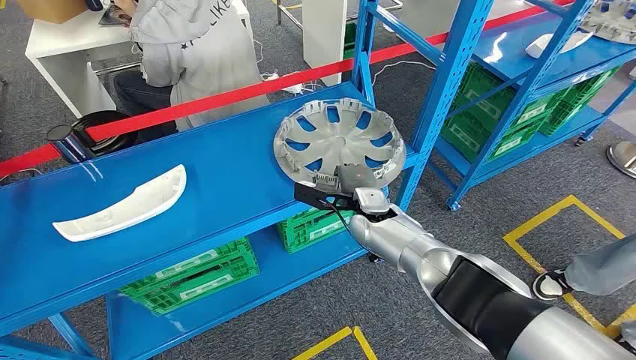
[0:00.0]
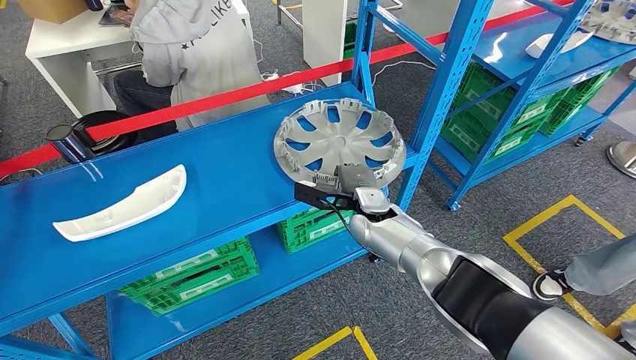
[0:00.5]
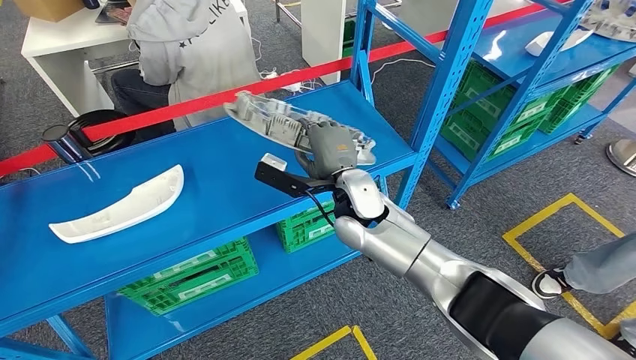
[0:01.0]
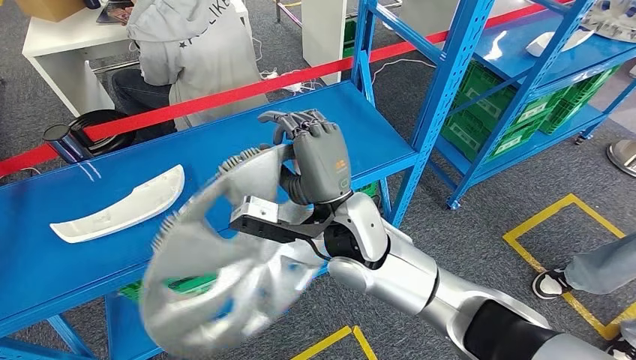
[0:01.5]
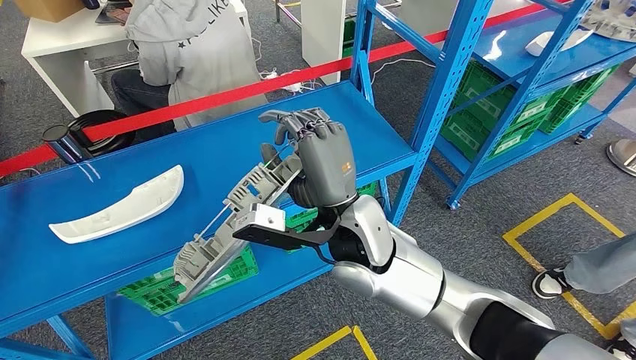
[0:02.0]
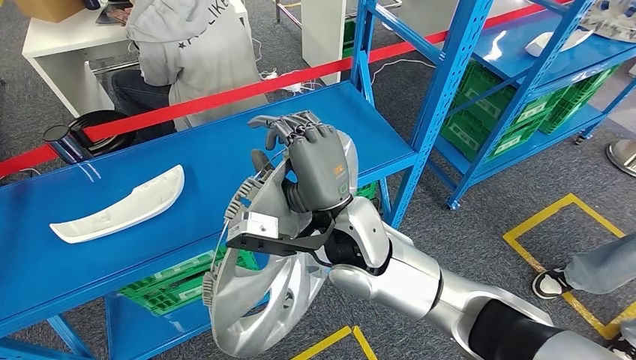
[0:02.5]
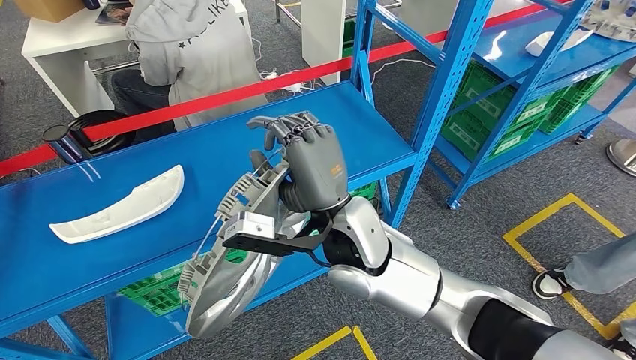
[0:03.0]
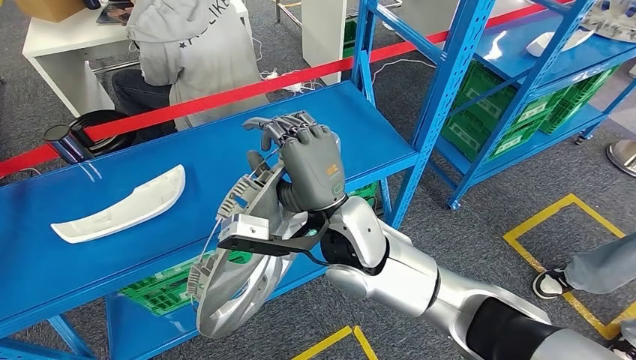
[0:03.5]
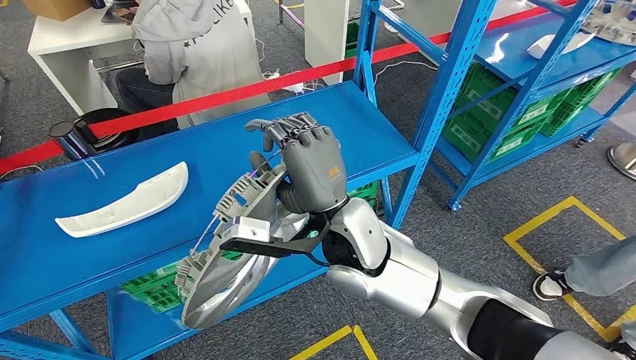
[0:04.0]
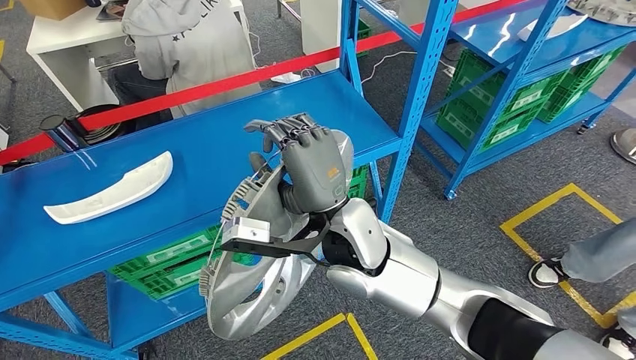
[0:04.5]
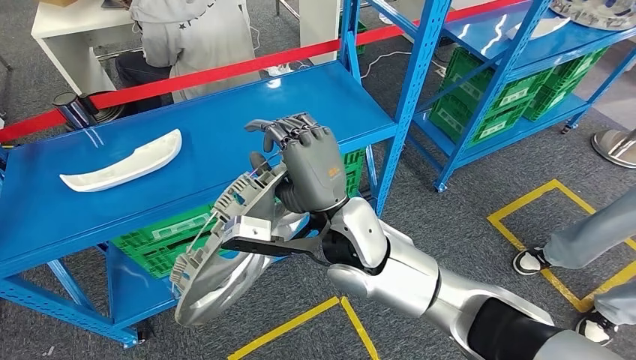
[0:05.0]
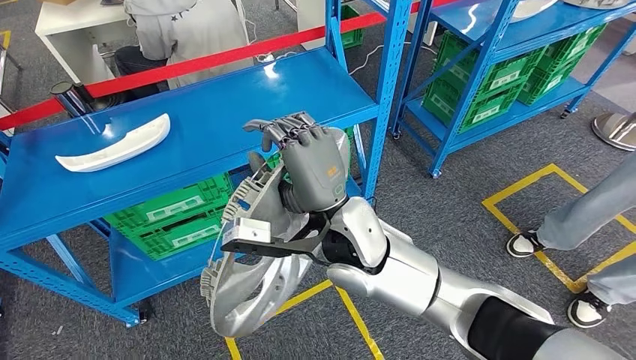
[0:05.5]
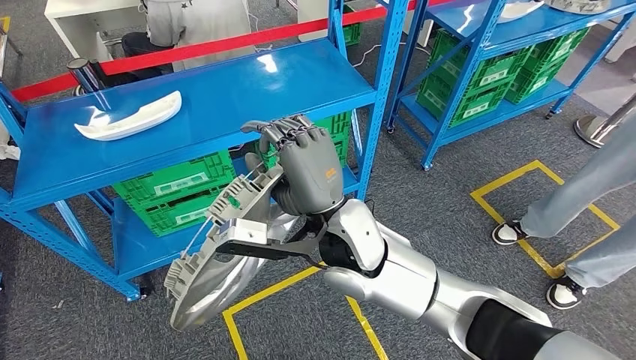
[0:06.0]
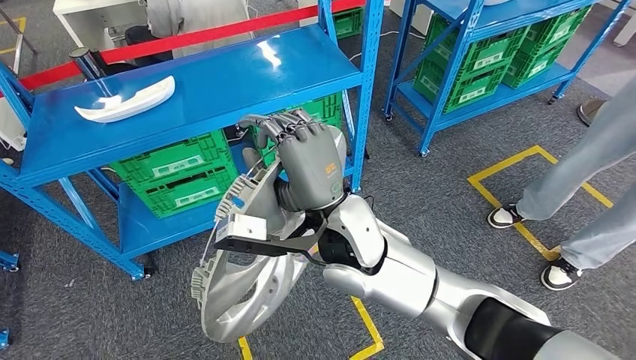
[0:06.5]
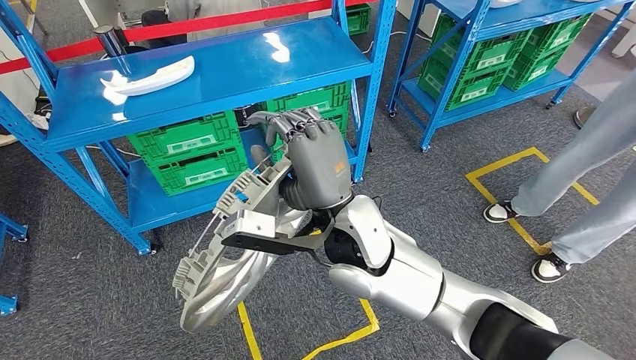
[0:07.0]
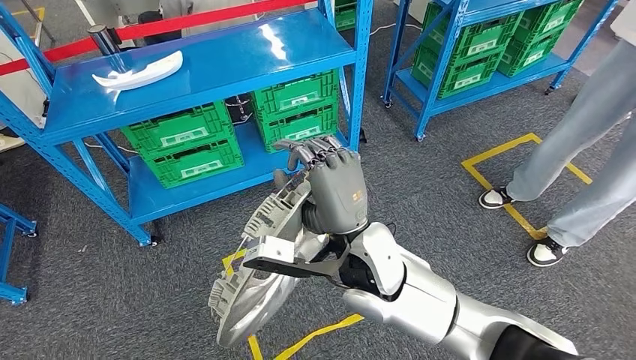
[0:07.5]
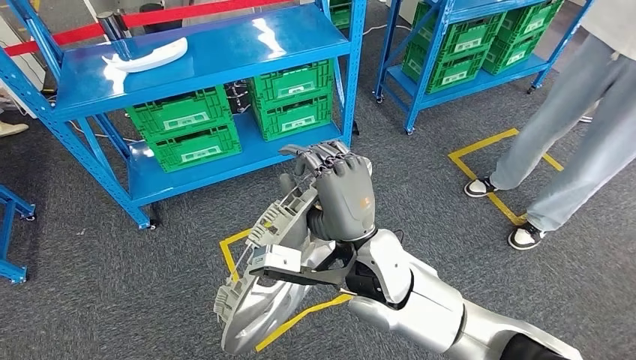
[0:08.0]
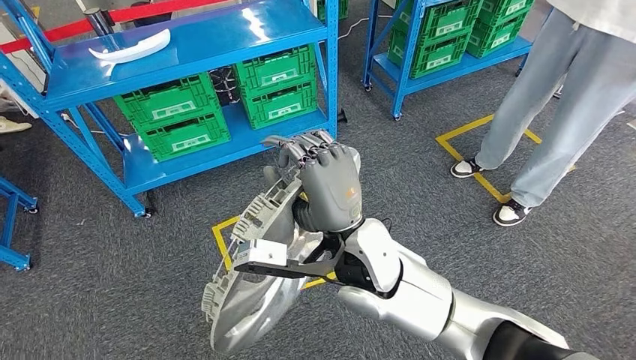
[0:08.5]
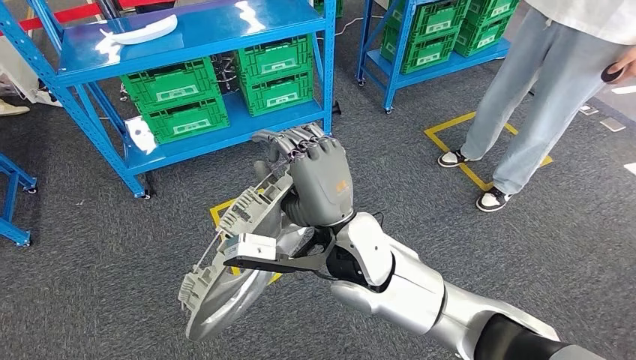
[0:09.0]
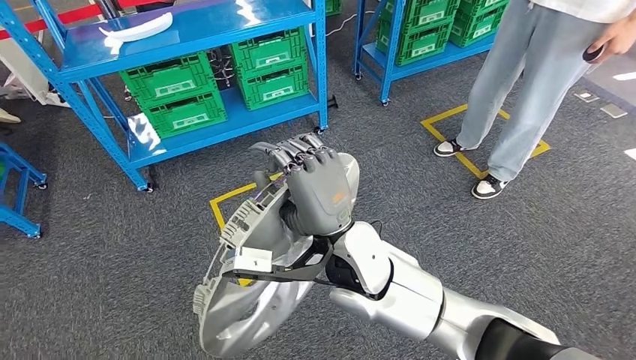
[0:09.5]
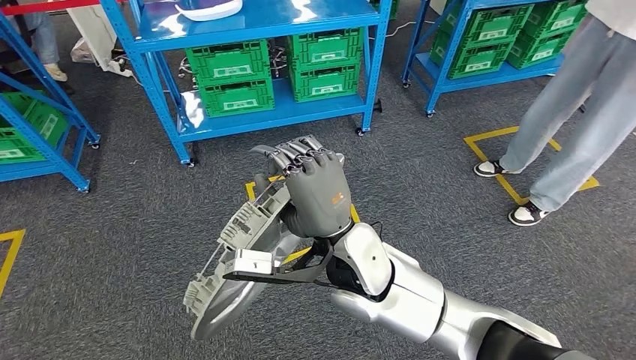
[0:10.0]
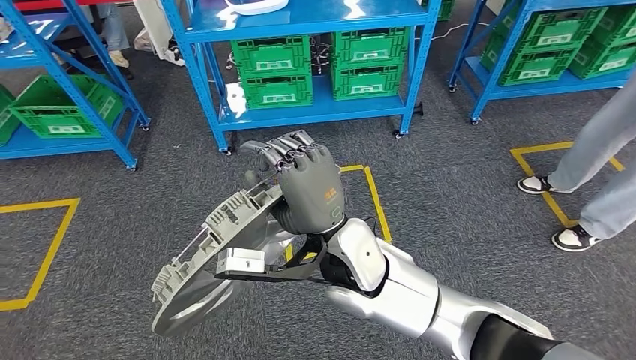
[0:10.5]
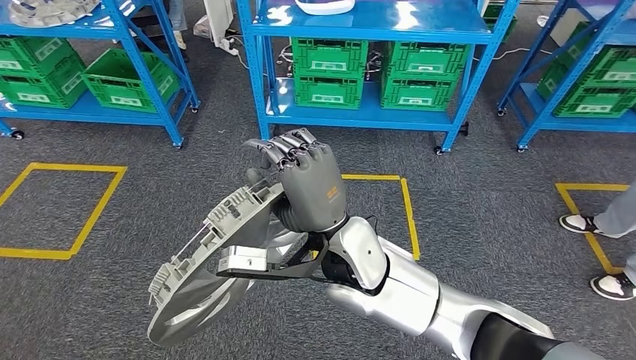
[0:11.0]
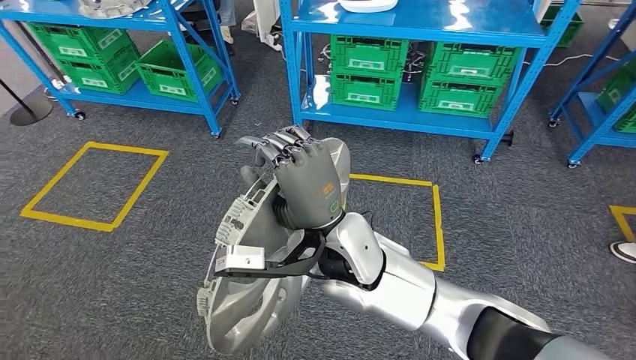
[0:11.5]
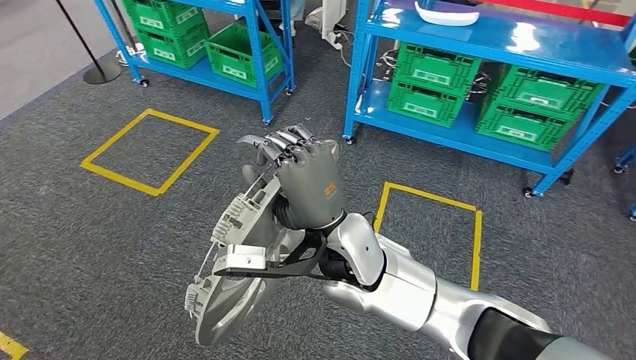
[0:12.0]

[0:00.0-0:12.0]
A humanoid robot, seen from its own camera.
Step, 0:00.0 to 0:05.0: Pick up the large material from the shelf.

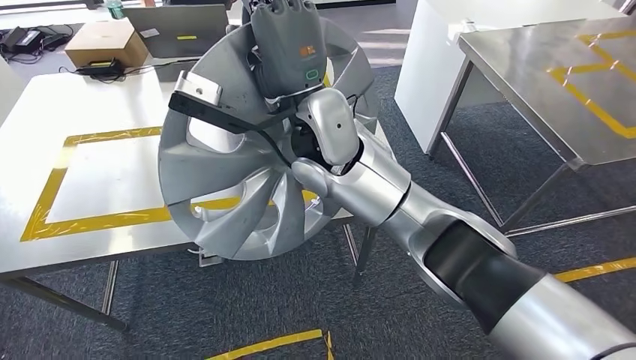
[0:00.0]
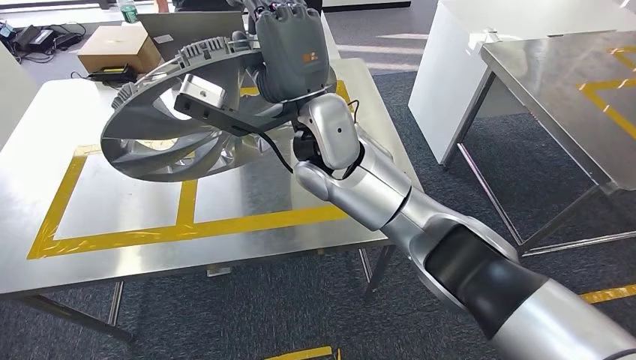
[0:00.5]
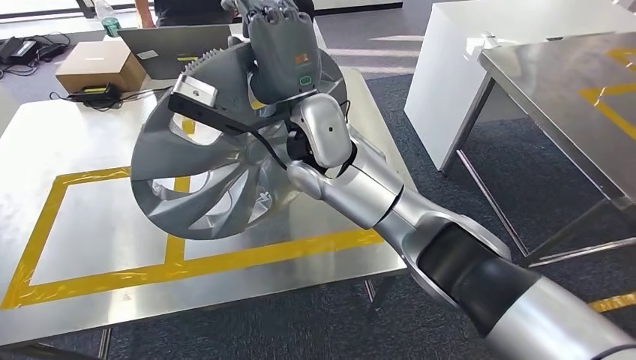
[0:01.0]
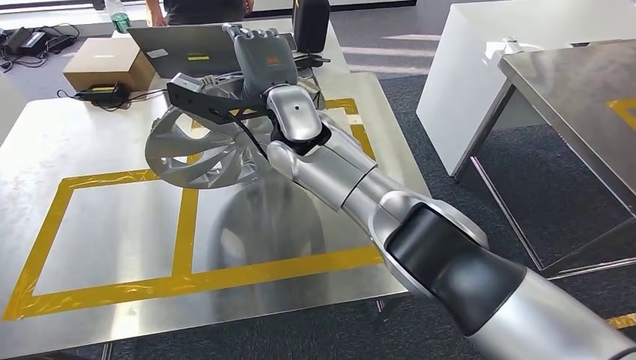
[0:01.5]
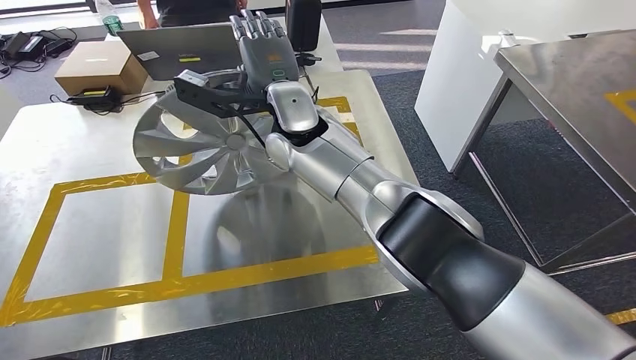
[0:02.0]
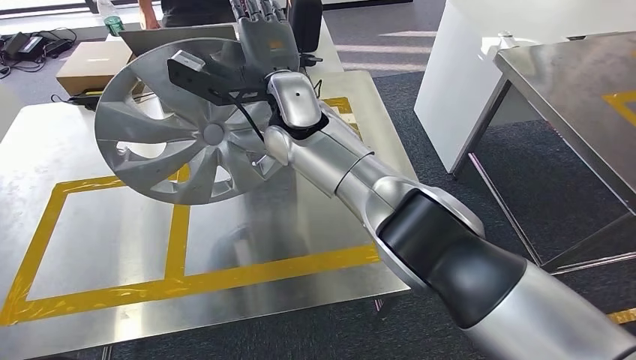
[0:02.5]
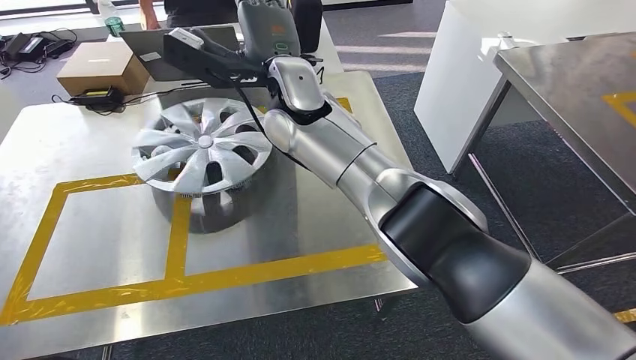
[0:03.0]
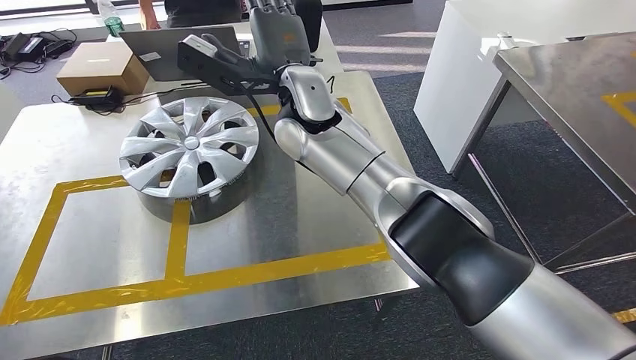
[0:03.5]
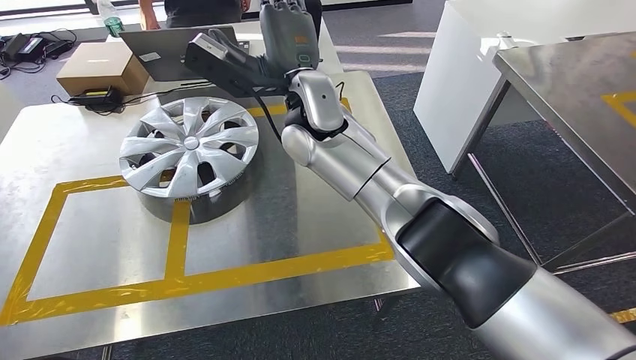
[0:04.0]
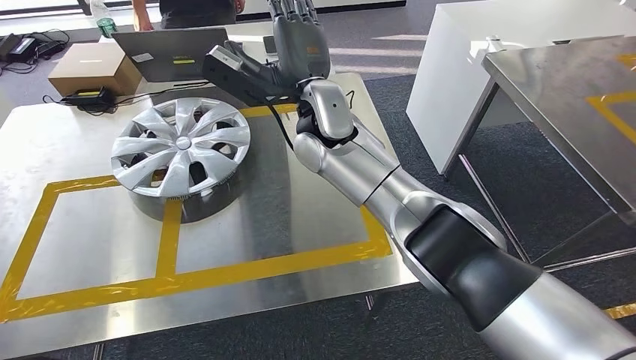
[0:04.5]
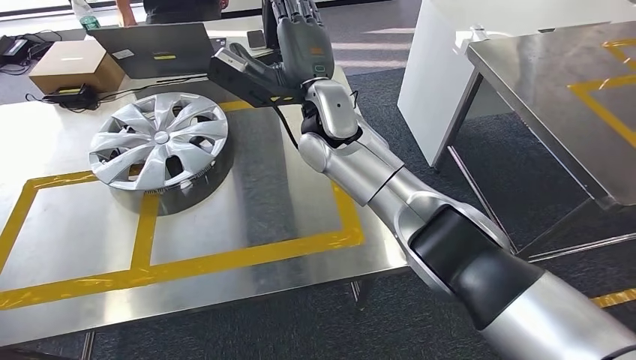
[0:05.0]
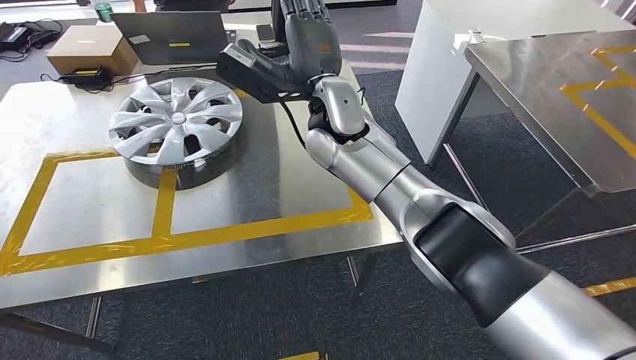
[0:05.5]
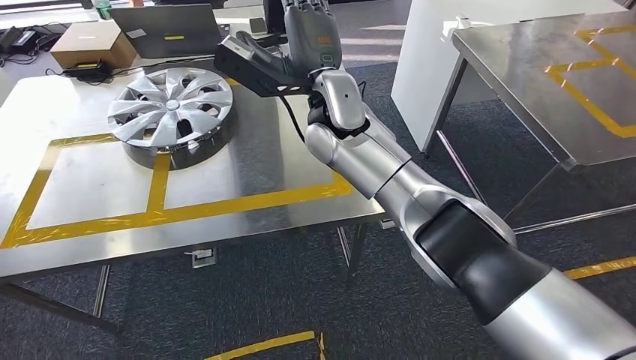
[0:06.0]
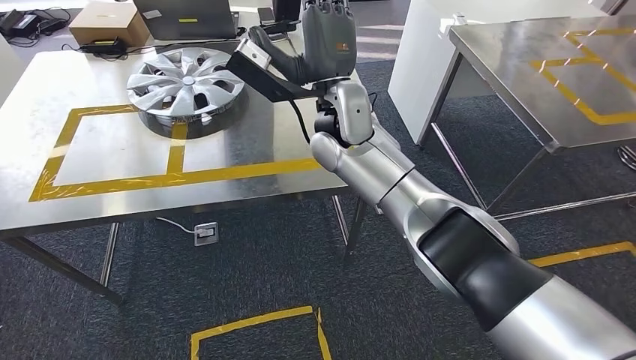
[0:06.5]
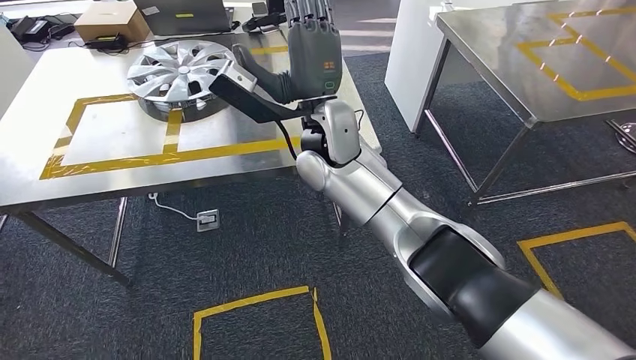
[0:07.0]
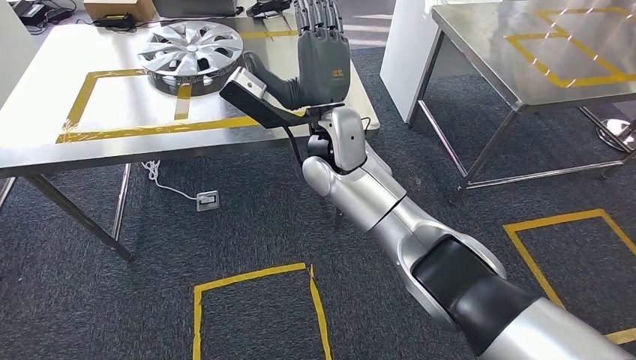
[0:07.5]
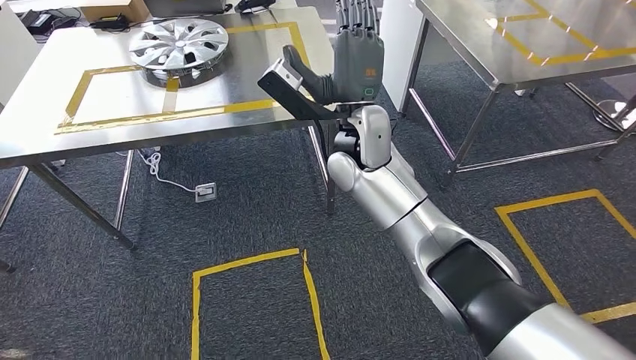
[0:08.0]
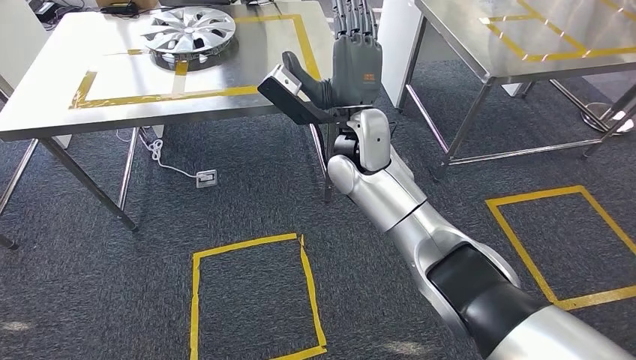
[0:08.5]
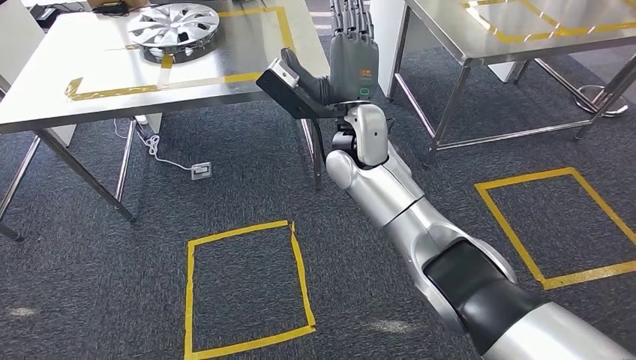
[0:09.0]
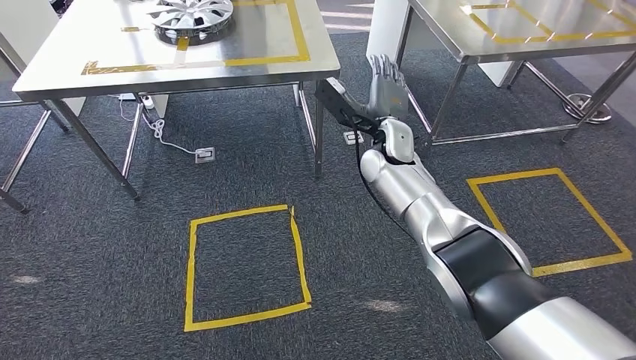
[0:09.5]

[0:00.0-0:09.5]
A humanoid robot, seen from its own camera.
Step, 0:01.5 to 0:05.0: Insert the large material into the corresponding slot on the workbench.
Step, 0:05.5 to 0:09.5: Move to the initial position of the shelf.
